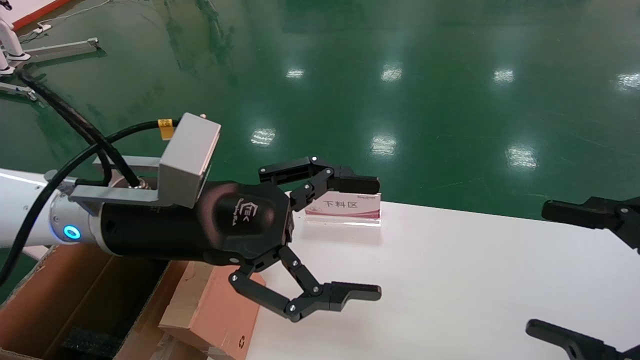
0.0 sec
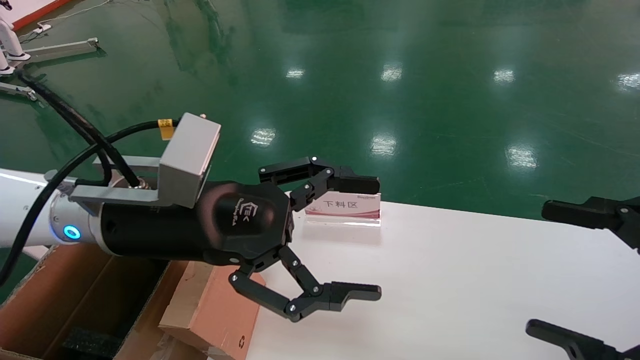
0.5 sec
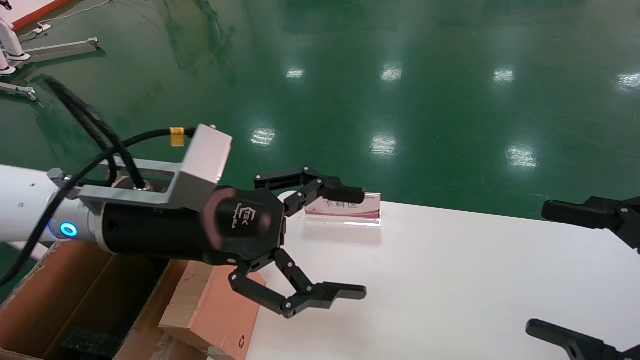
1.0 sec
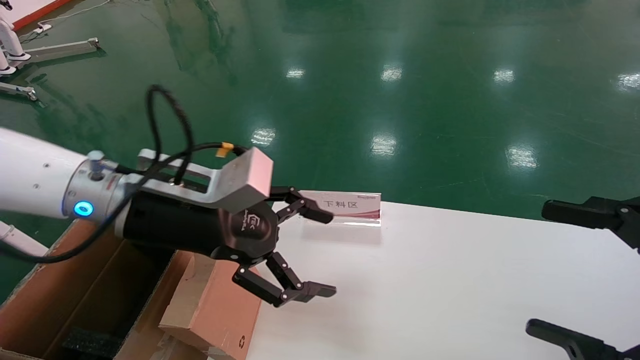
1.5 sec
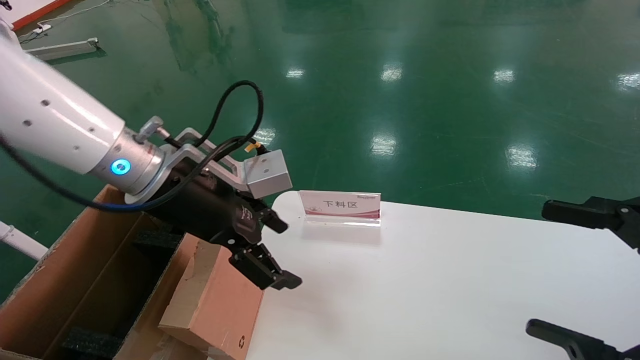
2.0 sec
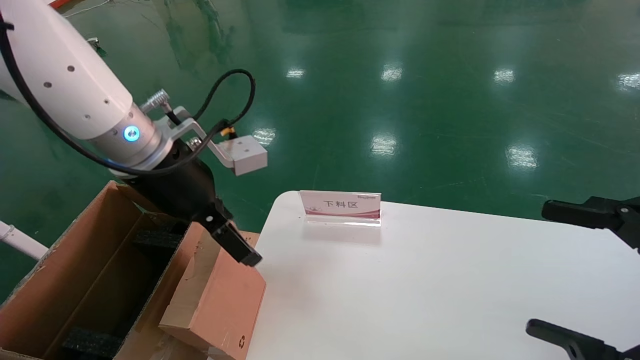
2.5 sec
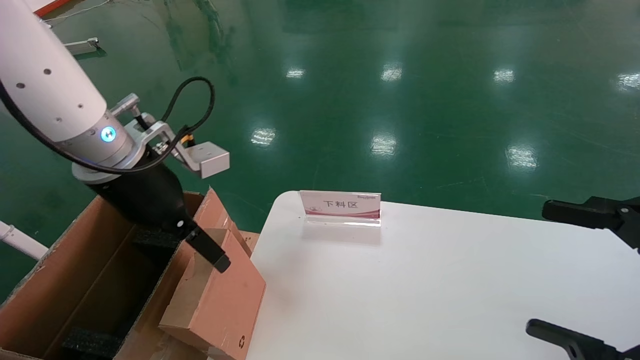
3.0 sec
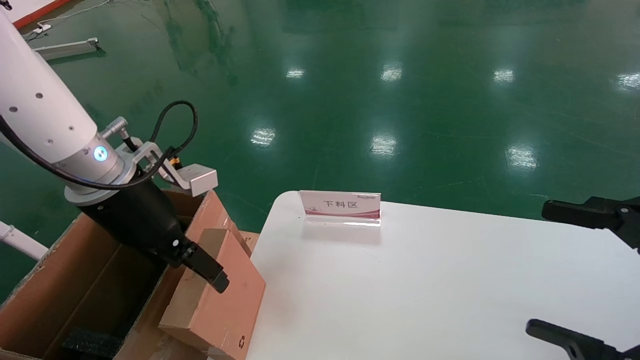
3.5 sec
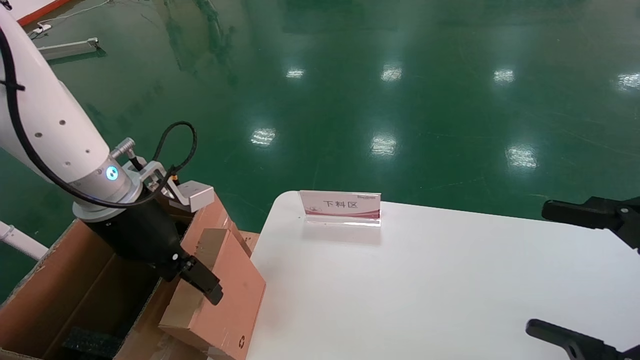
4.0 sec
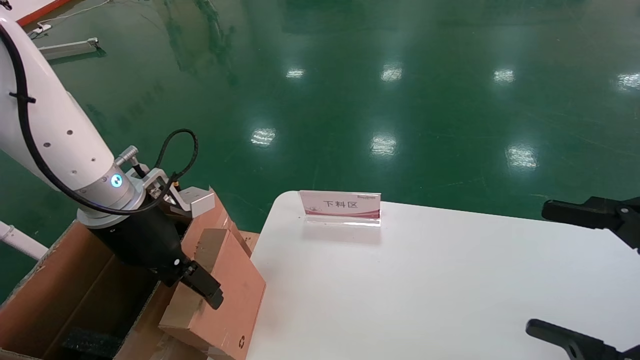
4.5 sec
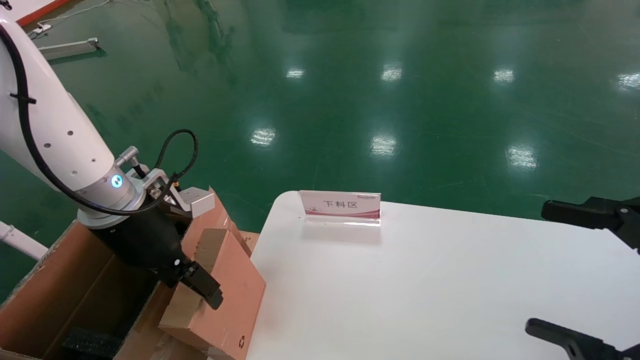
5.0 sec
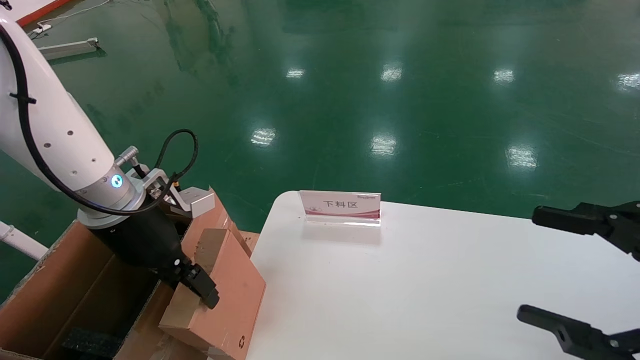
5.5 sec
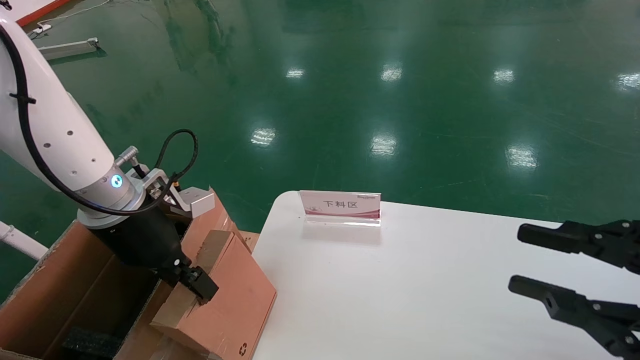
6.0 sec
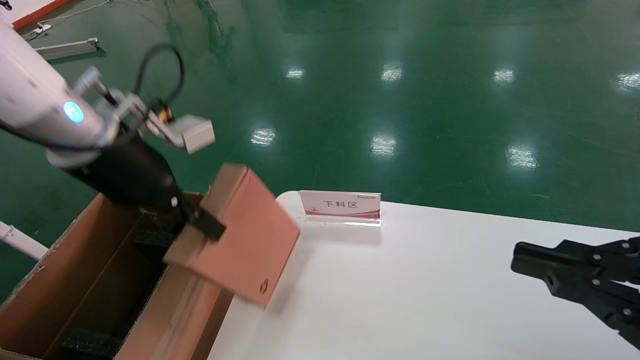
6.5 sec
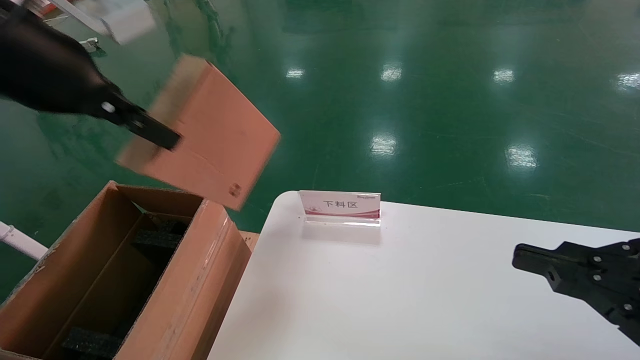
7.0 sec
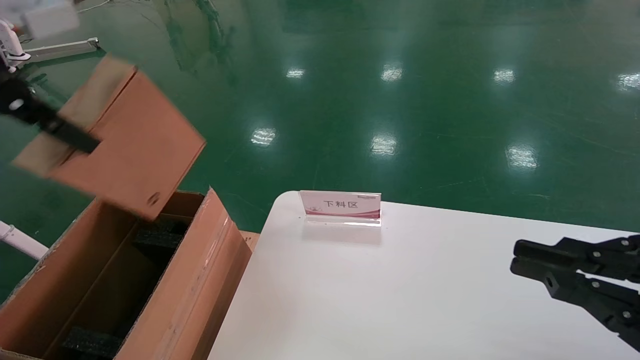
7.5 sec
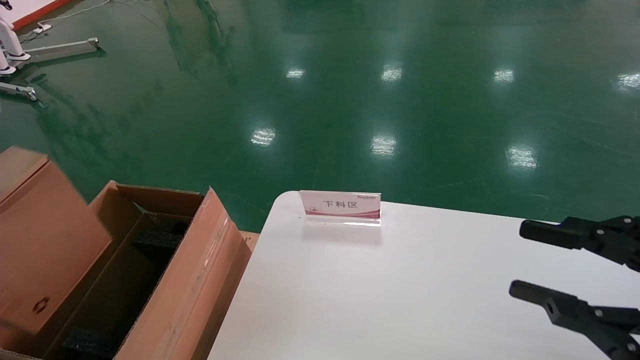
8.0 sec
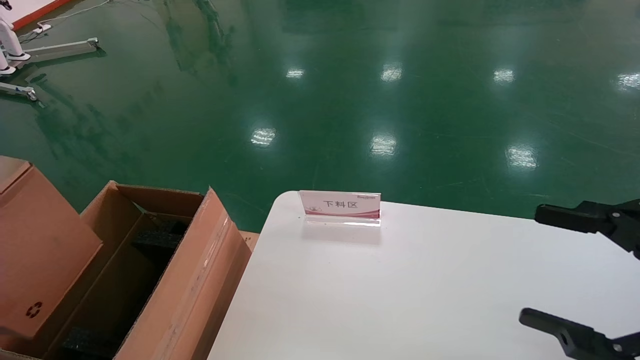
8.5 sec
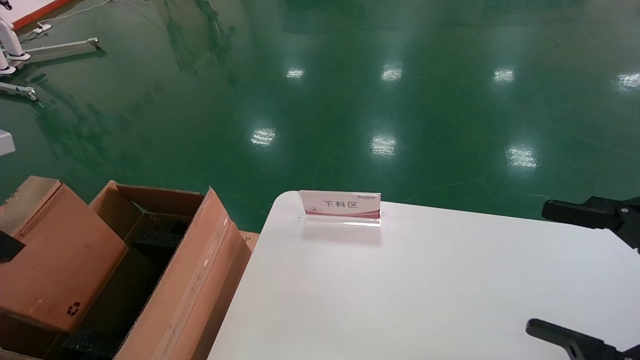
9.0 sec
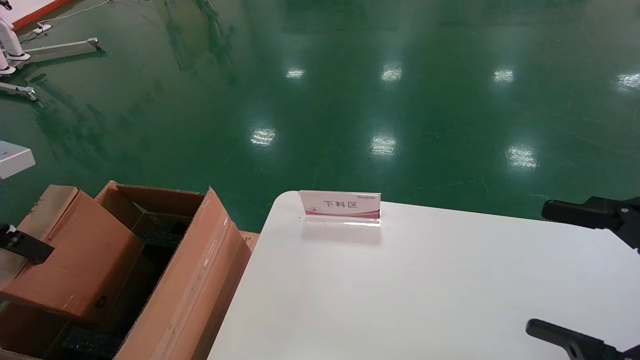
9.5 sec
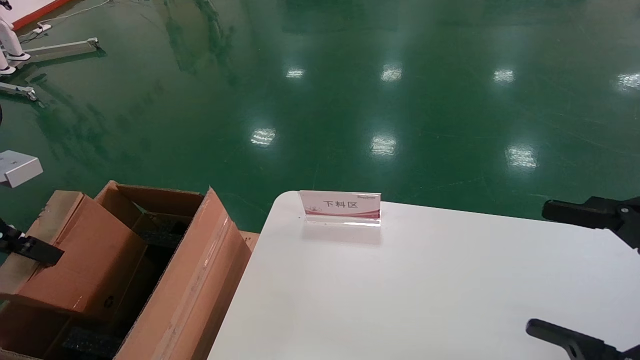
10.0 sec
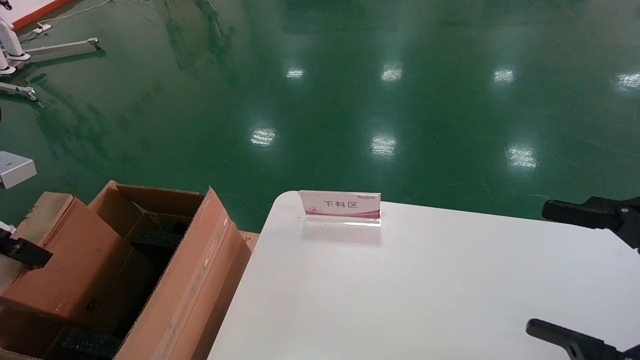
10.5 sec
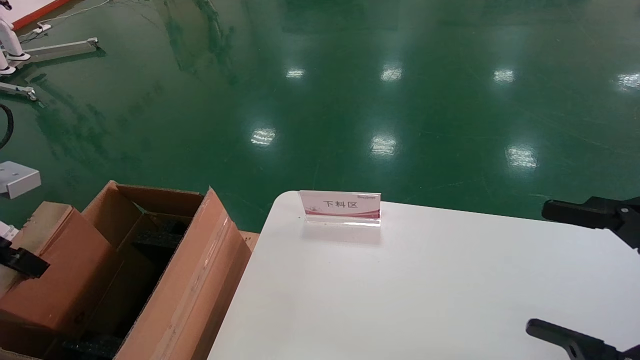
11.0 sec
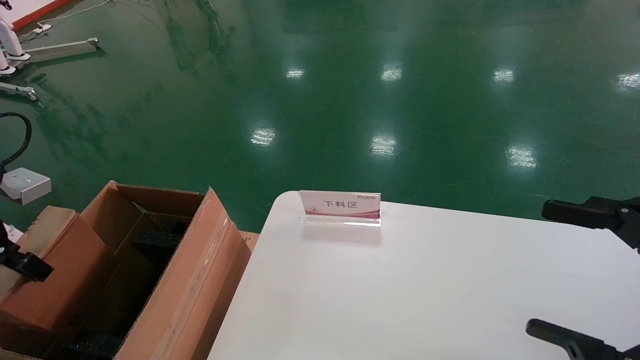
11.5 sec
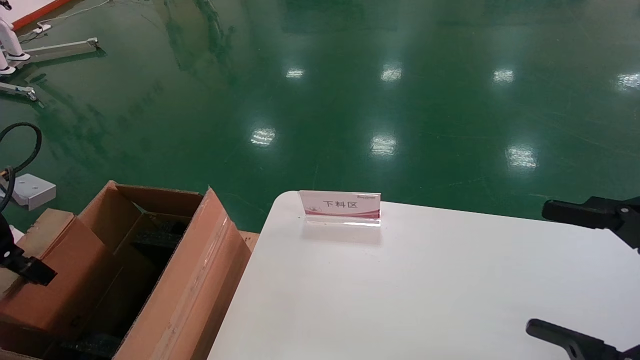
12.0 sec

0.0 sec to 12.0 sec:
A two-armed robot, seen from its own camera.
Task of the whole recording: pick up the small cardboard box and load it into the large cardboard box.
Step, 4.0 sec to 9.5 sec: Pick up the mouse and power cord box.
0.0 sec to 2.0 sec: The left gripper moves forward, approximately 5 cm.
2.0 sec to 4.0 sec: The left gripper travels to the left by roughly 5 cm.
4.0 sec to 6.0 sec: The right gripper closes; the left gripper closes.
6.0 sec to 8.0 sec: The left gripper is displaced upward, backward and to the left by roughly 25 cm.
8.0 sec to 10.0 sec: The right gripper opens its fingers. The left gripper heads downward and to the left, covering about 15 cm.
10.0 sec to 12.0 sec: The left gripper changes place by about 5 cm.

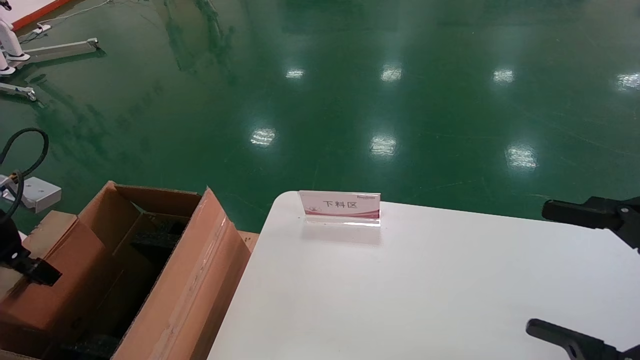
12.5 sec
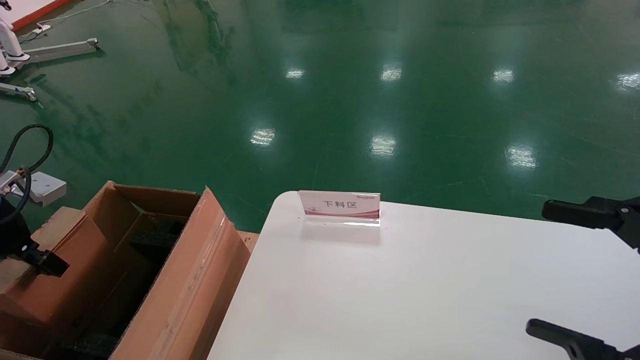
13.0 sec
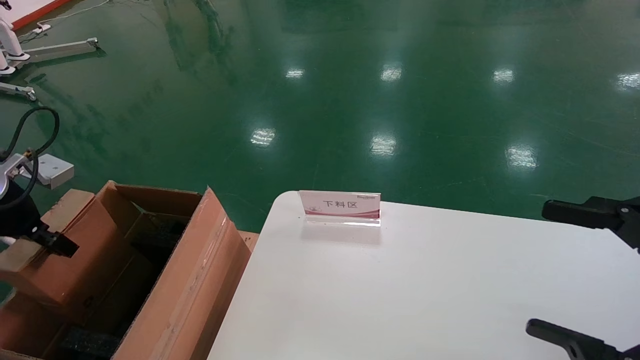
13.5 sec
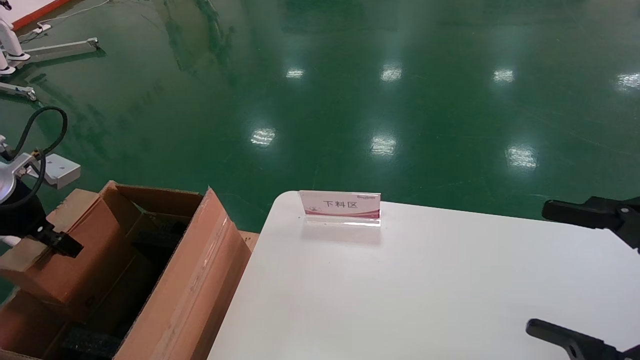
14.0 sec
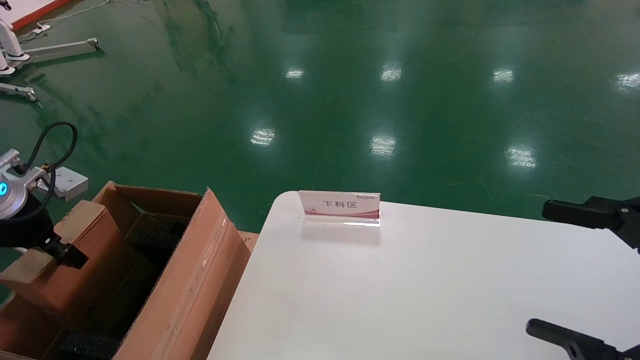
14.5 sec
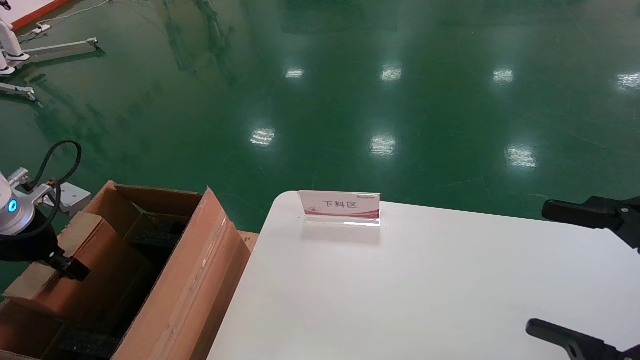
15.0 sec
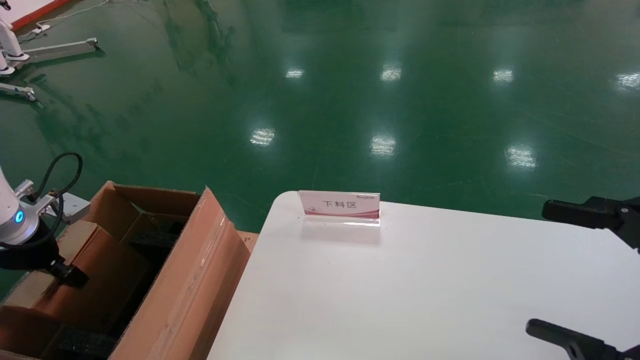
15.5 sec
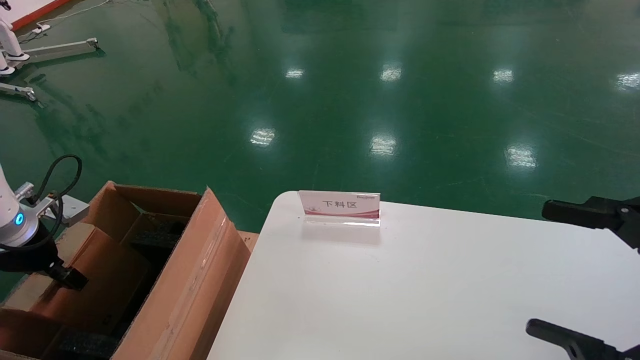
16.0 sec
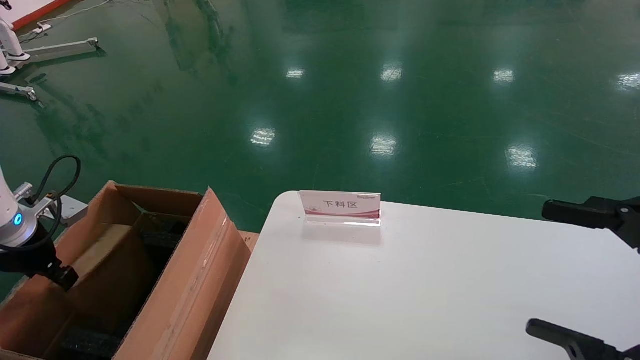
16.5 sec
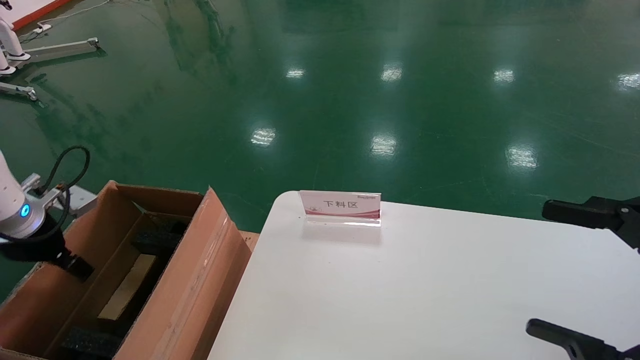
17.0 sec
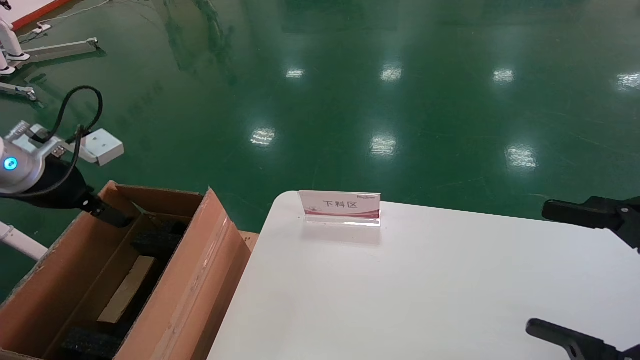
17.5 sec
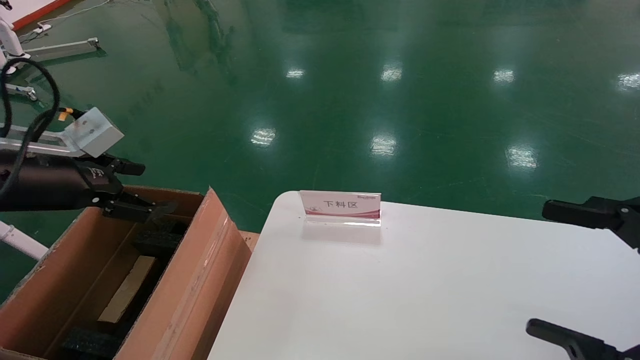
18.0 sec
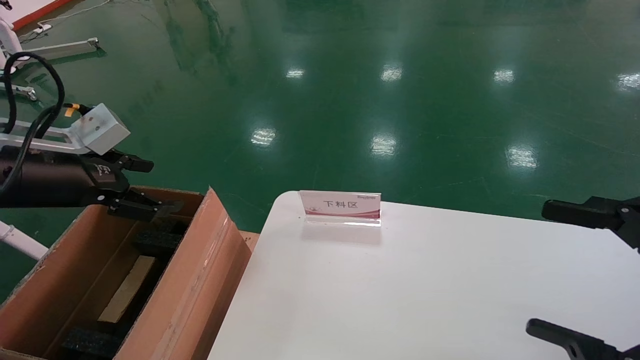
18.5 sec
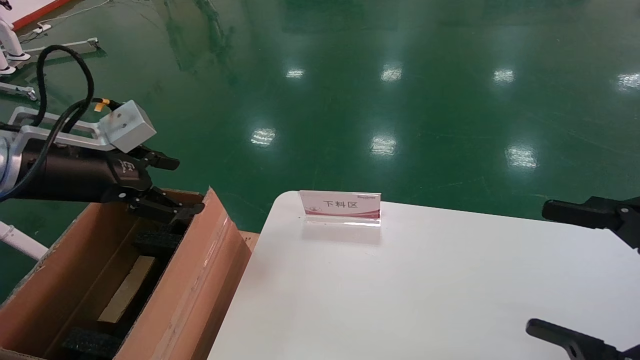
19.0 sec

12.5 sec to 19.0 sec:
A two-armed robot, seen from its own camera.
Task of the whole recording: pick up the small cardboard box and load it into the large cardboard box.
Step, 12.5 sec to 19.0 sec: Place the mouse and power cord box into the case.
12.5 sec to 14.5 sec: The grippers move only a little.
14.5 sec to 17.0 sec: The left gripper opens.
17.0 sec to 19.0 sec: The left gripper is displaced to the right and upward by approximately 15 cm.

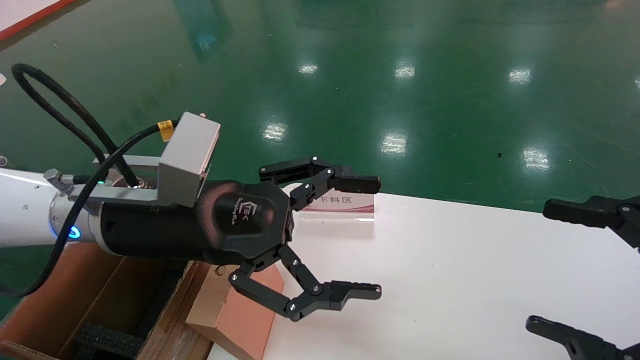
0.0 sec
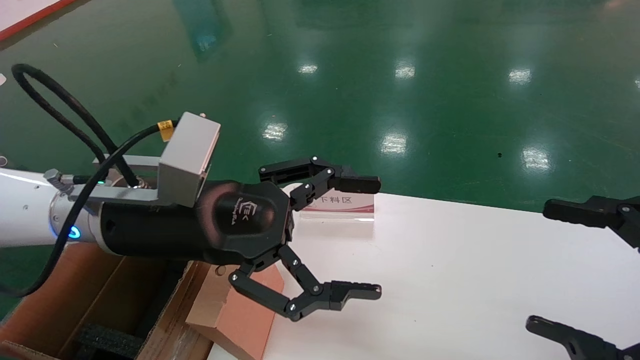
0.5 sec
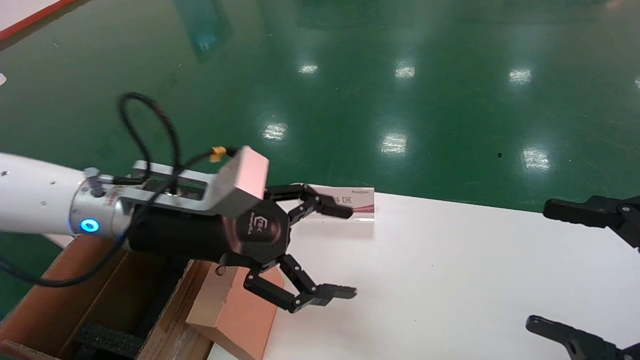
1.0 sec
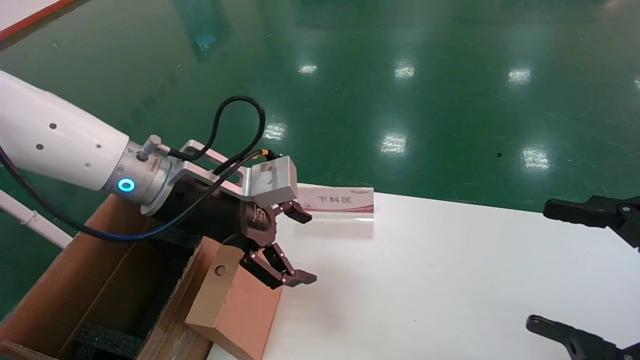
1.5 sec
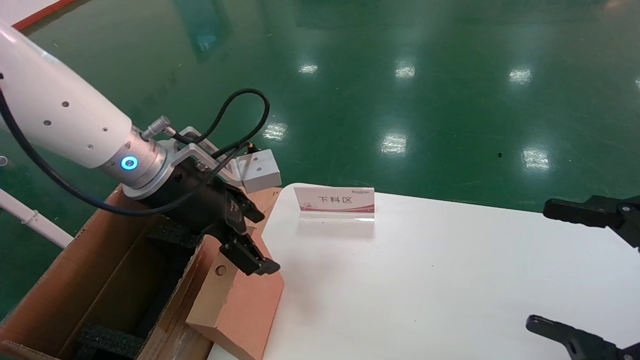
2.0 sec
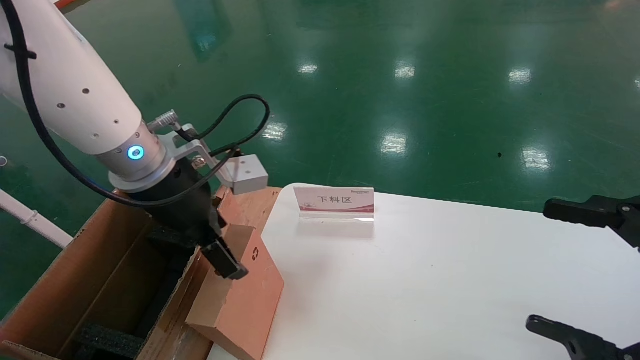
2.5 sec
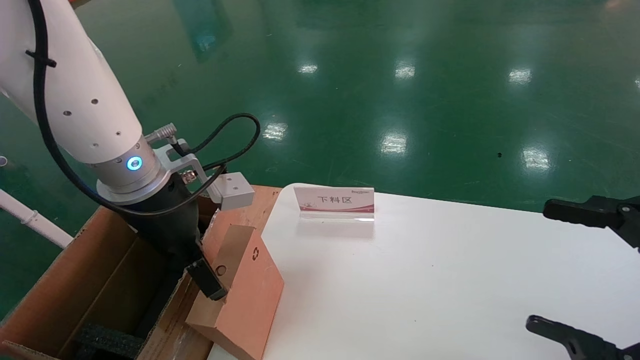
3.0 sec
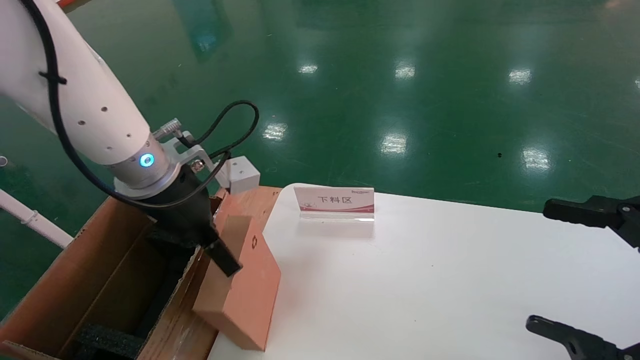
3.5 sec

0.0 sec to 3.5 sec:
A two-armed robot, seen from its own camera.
Task of the whole recording: pick up the small cardboard box and load it into the large cardboard box.
0.0 sec to 2.0 sec: The left gripper moves forward, some 5 cm.
